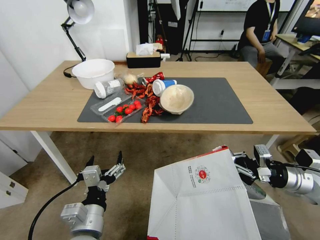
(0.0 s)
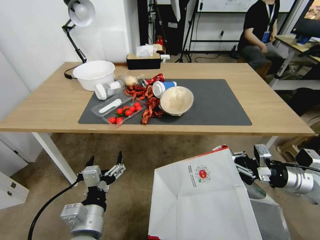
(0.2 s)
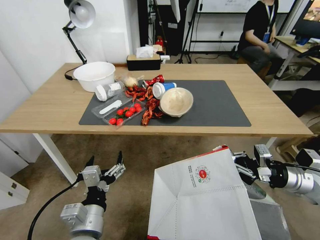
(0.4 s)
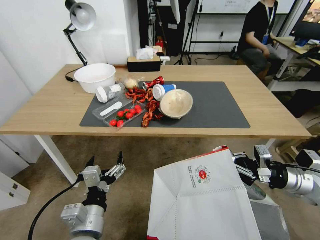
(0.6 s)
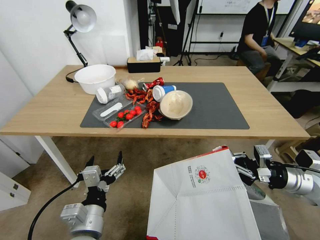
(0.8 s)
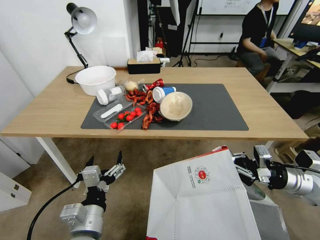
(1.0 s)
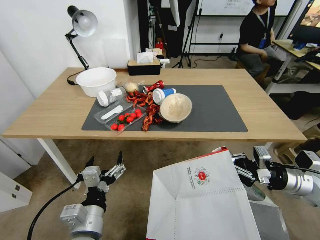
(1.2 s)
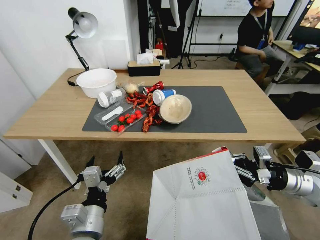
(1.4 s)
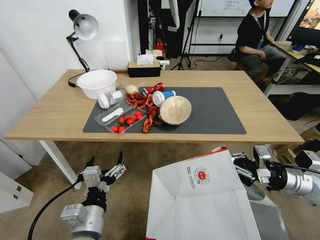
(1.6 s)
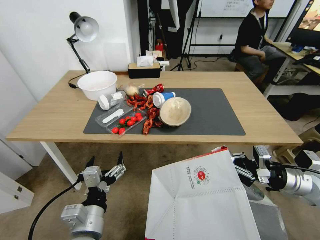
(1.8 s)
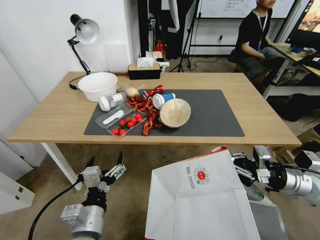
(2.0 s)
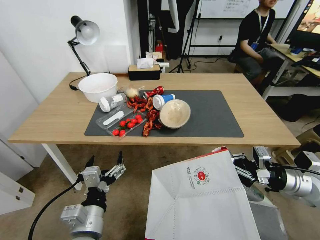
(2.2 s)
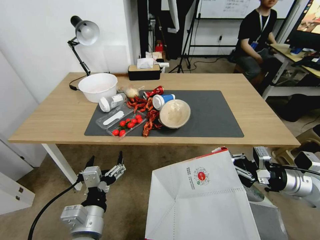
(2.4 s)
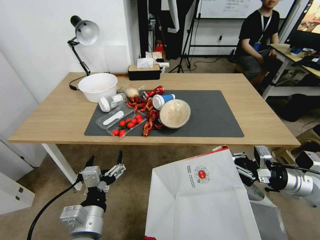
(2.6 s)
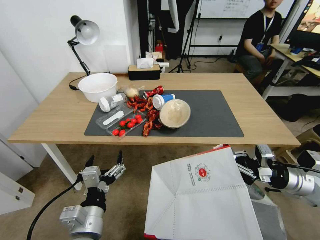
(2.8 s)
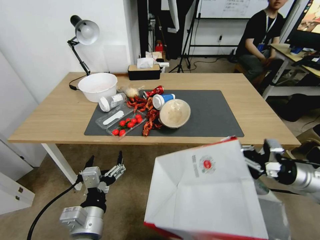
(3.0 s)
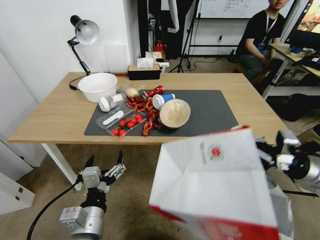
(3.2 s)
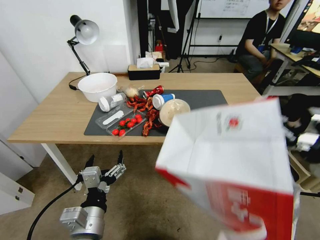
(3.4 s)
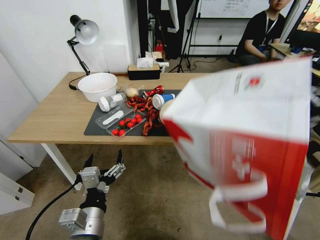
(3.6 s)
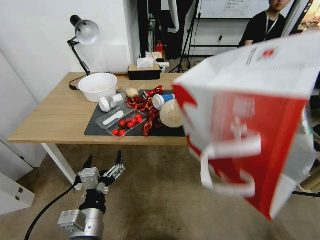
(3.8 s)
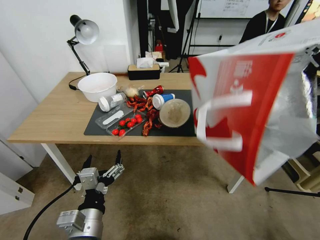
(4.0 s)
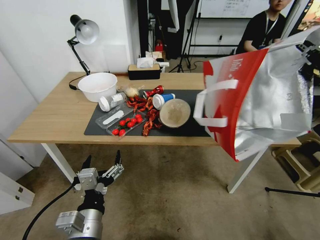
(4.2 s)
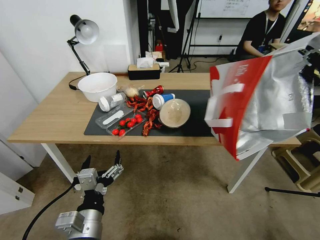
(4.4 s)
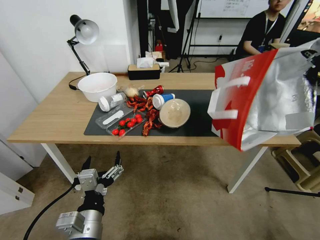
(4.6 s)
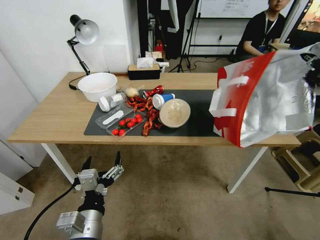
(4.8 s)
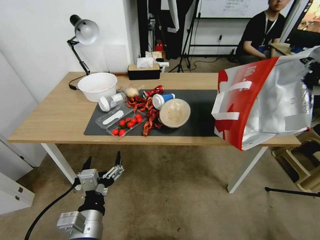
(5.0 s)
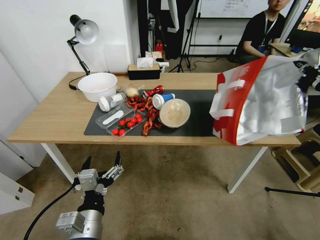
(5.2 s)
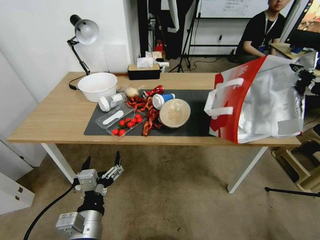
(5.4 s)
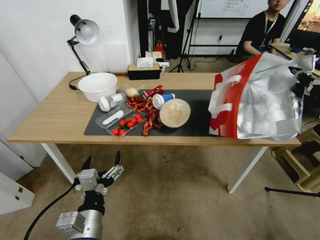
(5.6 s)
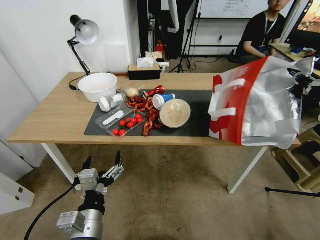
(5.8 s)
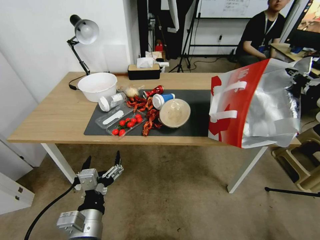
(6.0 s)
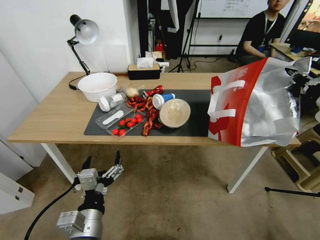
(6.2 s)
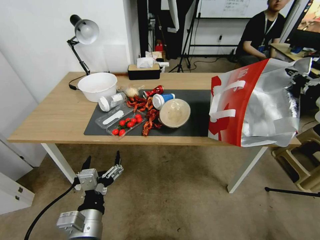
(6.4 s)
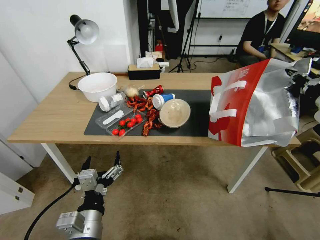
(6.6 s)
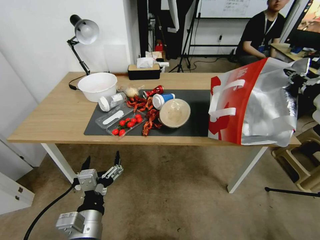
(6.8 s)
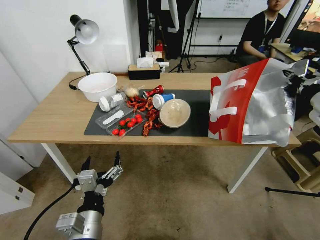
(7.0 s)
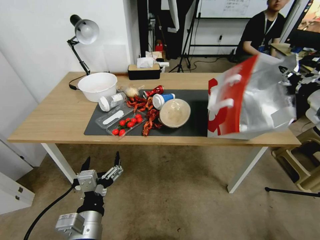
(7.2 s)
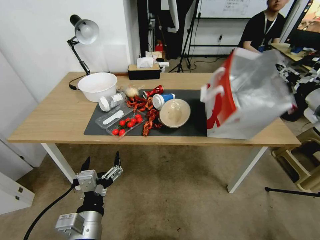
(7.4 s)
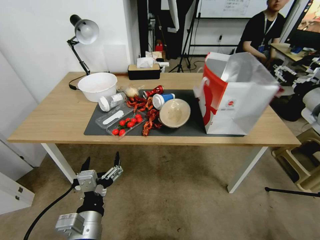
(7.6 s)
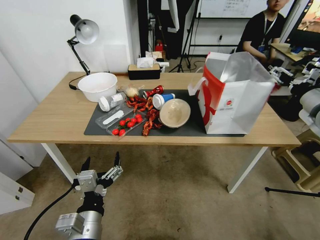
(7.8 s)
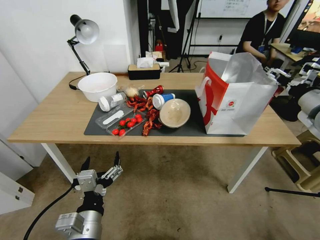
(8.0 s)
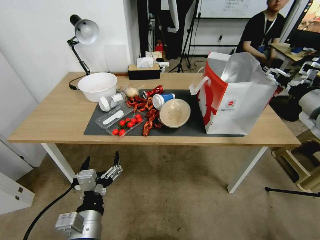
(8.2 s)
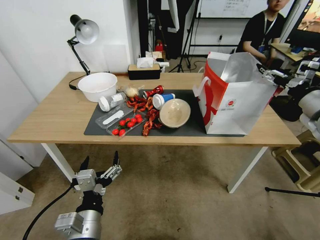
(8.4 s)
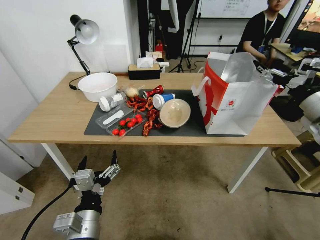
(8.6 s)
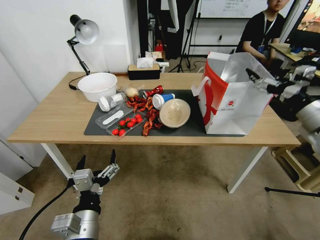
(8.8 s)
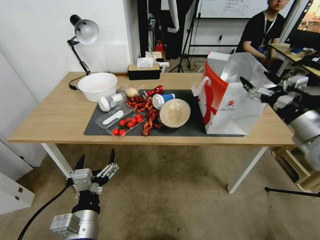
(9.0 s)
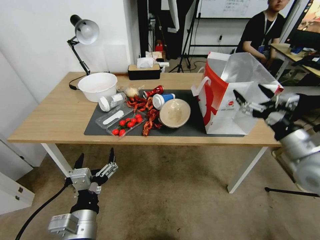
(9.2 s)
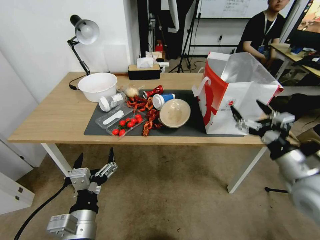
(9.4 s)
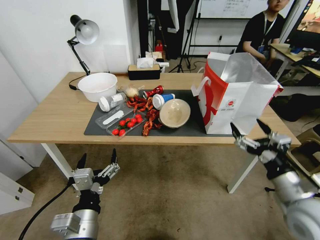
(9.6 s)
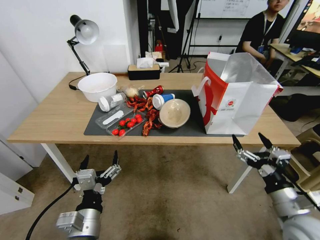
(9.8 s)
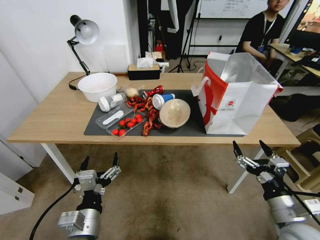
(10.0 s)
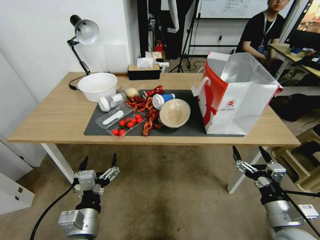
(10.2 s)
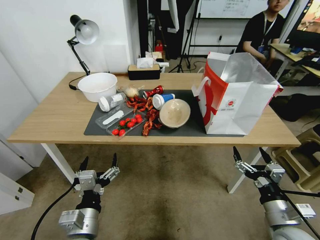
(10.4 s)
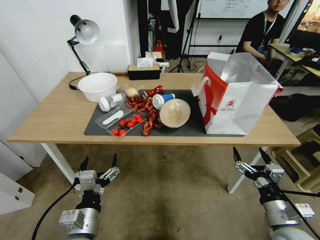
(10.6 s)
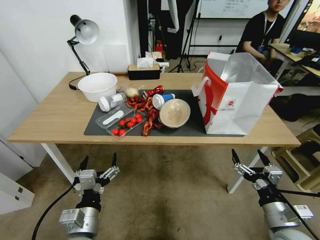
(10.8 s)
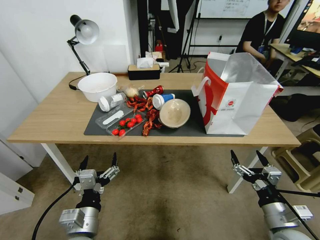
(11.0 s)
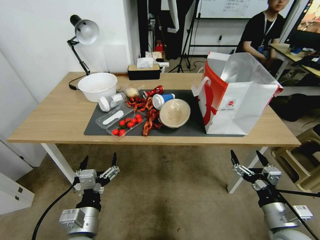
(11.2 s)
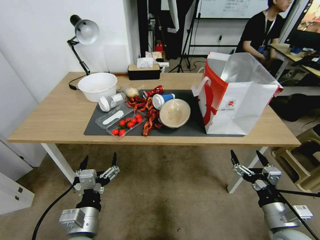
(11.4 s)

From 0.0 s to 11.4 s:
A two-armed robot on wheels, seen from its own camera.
Task of the whole recording: Pick up the food delivery bag from the floor and place it on the table.
From 2.8 s to 4.2 s: The right gripper shifts roughly 20 cm upward.
From 4.2 s to 5.6 s: The right gripper moves forward, roughly 5 cm.
From 5.6 s to 7.2 s: The grippers move only a little.
From 7.2 s to 8.6 s: The right gripper opens.
From 8.6 s to 10.0 s: The right gripper moves downward, backward and to the left, some 30 cm.
From 10.0 s to 11.4 s: There are only small adjustments of the grippers.

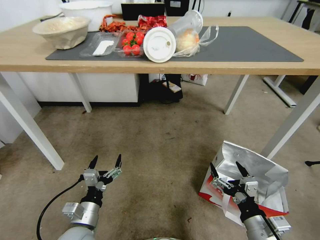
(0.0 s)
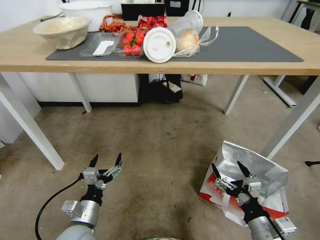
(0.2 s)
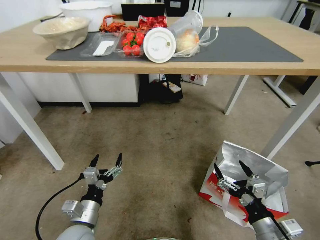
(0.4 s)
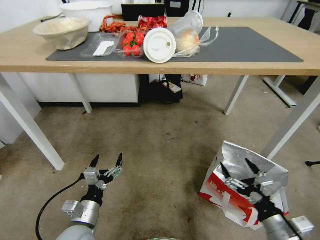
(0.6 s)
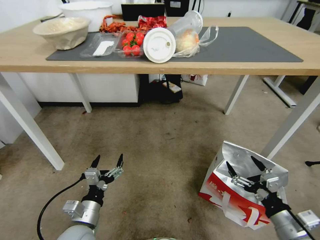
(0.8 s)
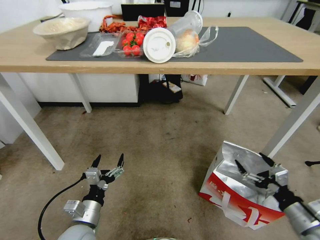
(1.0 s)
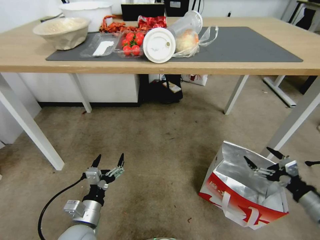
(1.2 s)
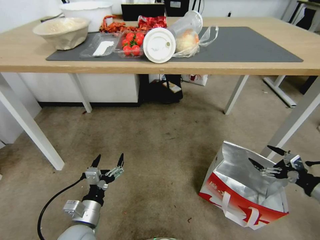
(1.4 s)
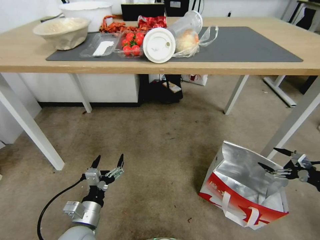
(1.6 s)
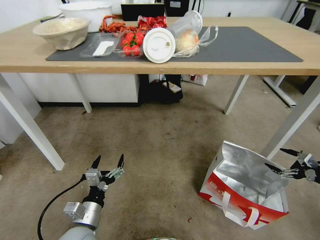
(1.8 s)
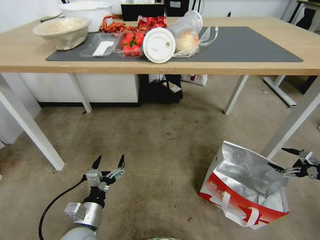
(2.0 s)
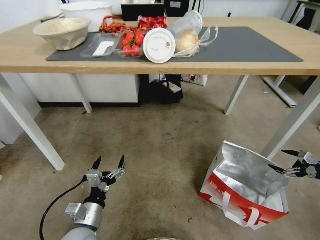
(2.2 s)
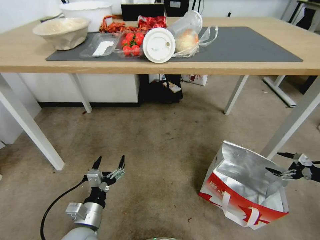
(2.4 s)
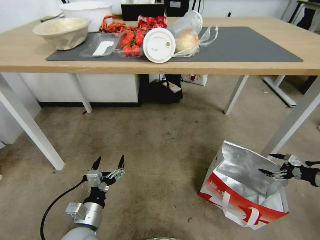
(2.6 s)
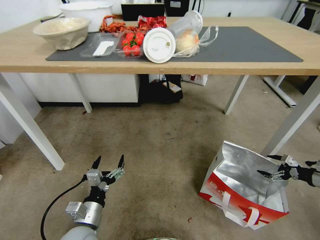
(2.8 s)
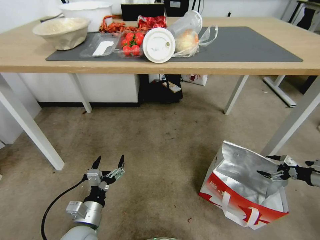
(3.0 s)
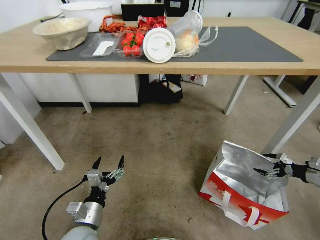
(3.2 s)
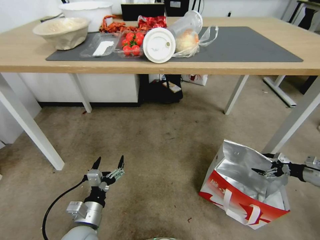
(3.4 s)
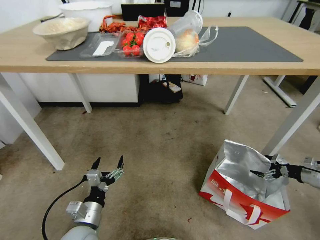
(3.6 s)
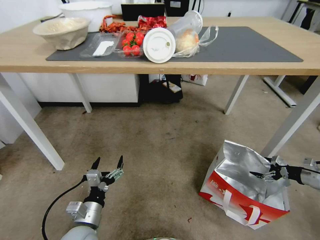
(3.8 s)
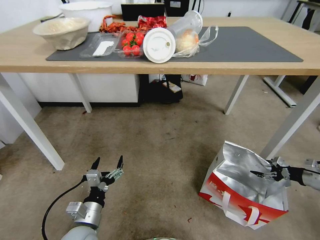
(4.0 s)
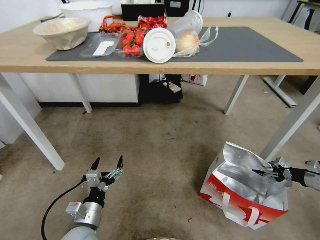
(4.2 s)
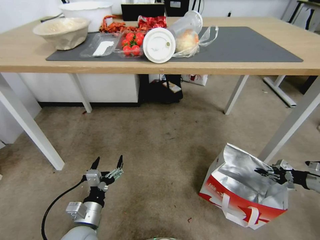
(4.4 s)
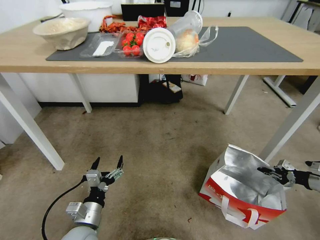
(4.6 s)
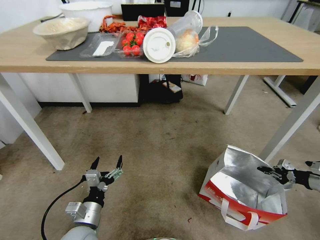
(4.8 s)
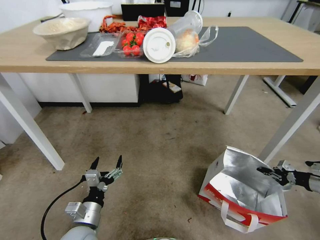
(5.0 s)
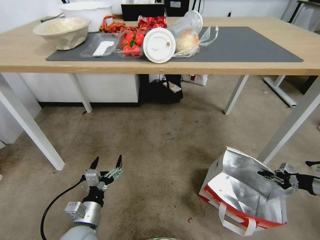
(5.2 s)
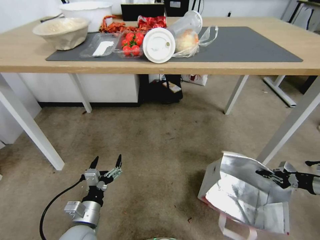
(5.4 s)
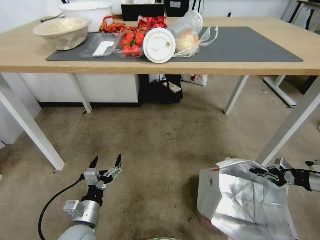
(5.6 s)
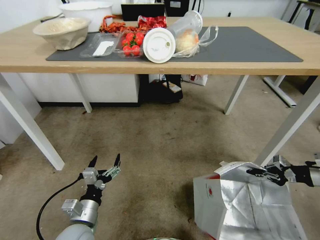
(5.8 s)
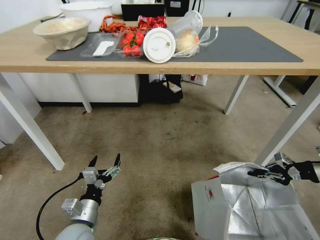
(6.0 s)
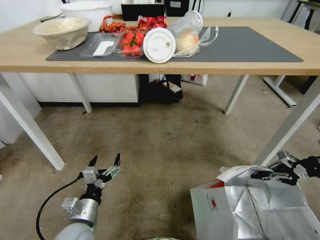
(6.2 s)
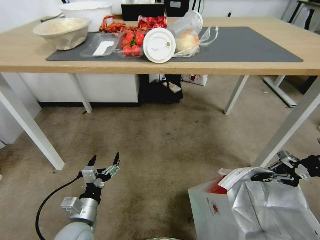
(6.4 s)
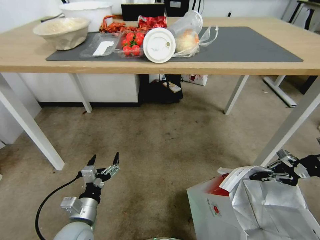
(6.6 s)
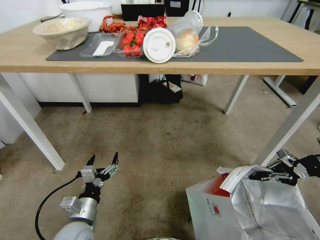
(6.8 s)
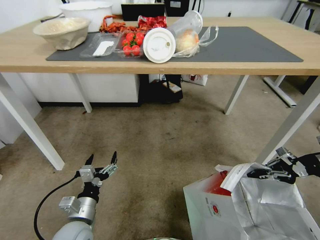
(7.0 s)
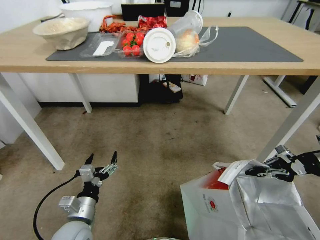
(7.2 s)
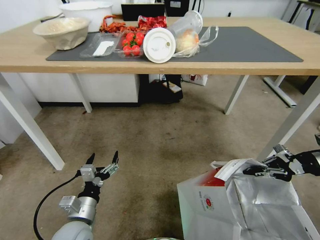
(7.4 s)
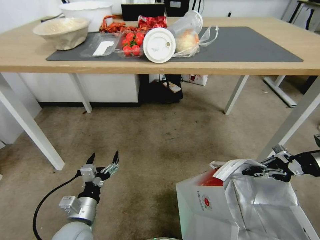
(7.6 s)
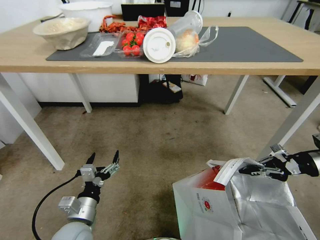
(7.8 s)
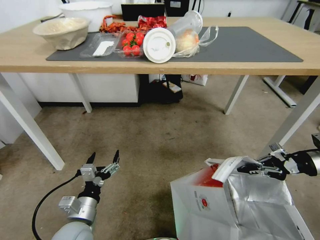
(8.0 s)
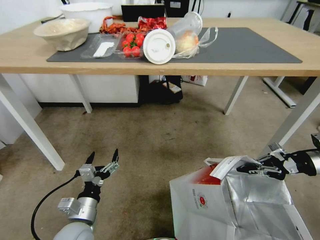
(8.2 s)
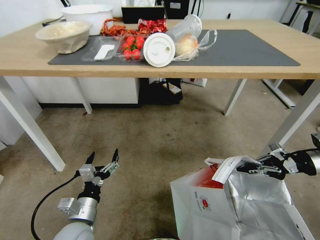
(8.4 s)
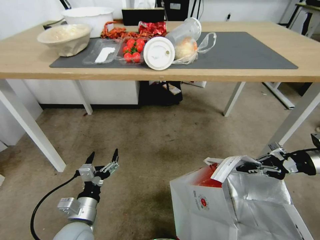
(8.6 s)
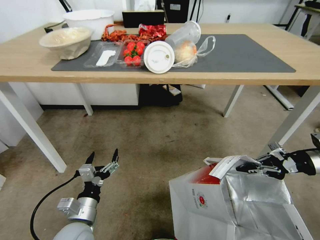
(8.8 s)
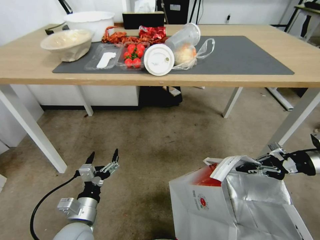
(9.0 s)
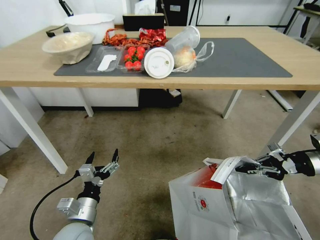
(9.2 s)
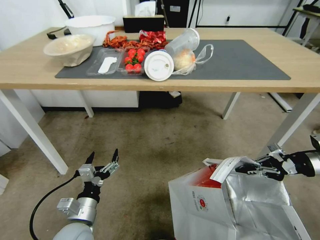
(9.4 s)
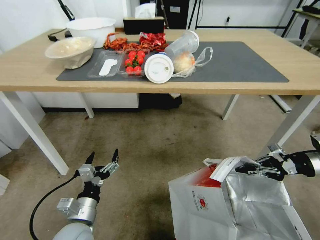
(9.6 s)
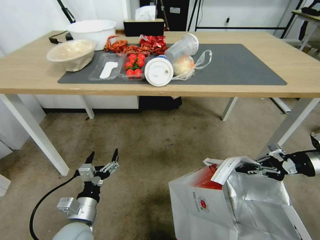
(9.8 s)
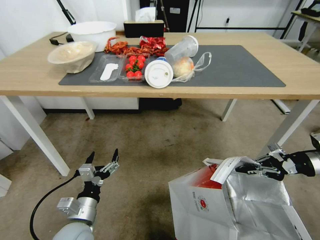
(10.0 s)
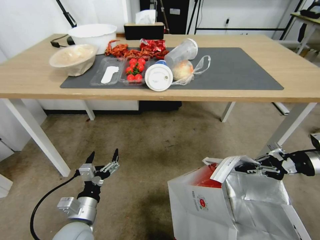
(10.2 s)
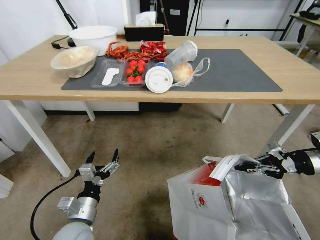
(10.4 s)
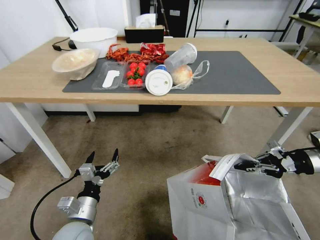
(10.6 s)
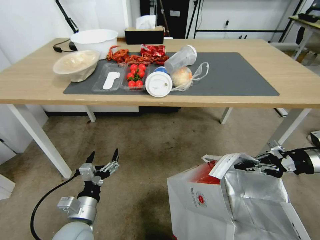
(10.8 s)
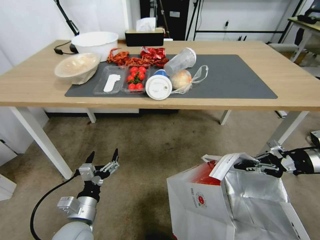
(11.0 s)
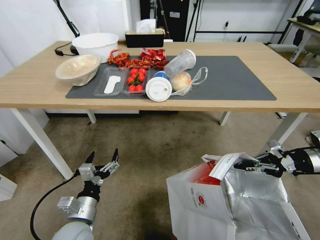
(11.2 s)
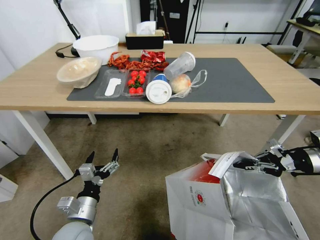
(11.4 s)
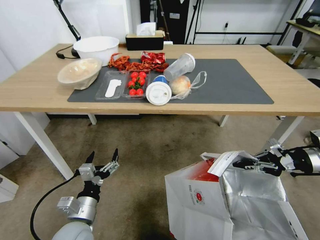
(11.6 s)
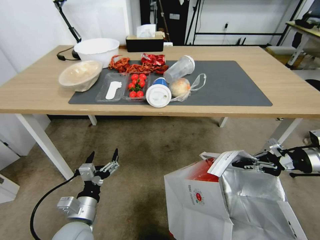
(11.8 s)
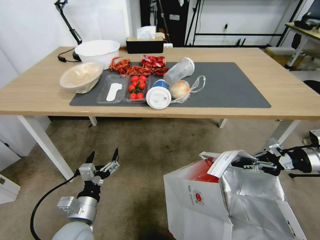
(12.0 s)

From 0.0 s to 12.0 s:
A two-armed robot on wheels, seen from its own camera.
Task of the whole recording: Pick up the food delivery bag from the floor and place it on the table.
From 0.0 s to 1.6 s: The right gripper travels to the right by some 30 cm.
From 1.6 s to 3.0 s: The right gripper goes some 10 cm forward, downward and to the right.
From 3.0 s to 4.4 s: The right gripper closes.
From 4.4 s to 6.0 s: The right gripper travels upward and to the left by roughly 15 cm.
From 6.0 s to 7.6 s: There are only small adjustments of the grippers.
